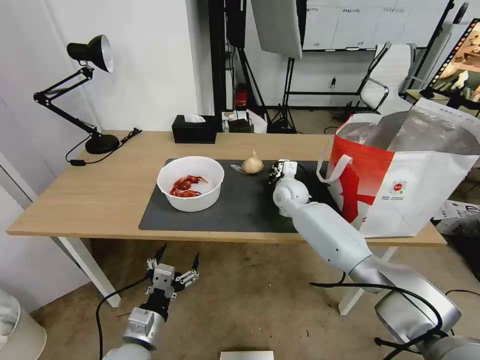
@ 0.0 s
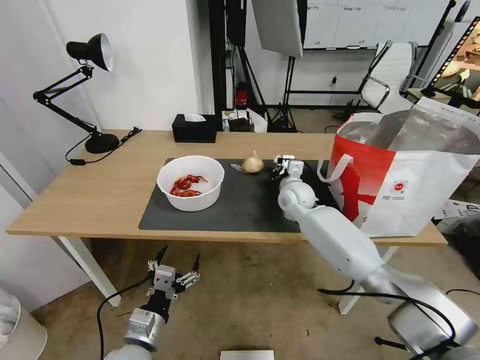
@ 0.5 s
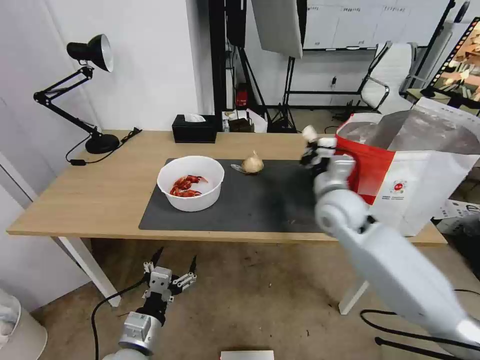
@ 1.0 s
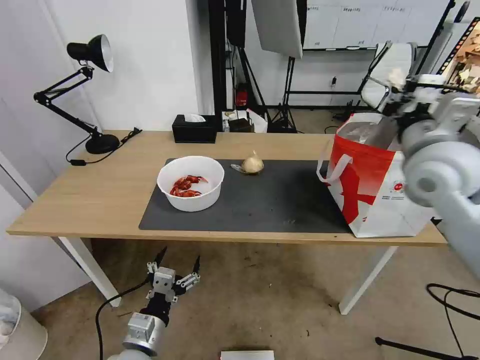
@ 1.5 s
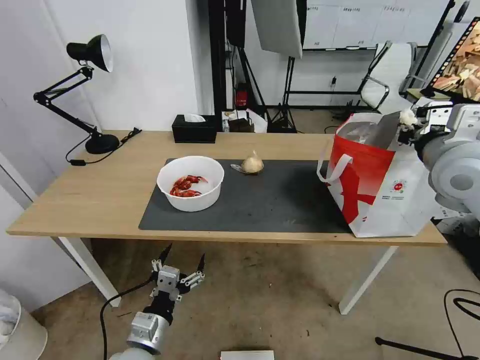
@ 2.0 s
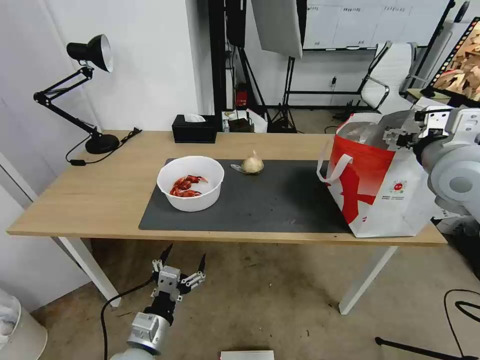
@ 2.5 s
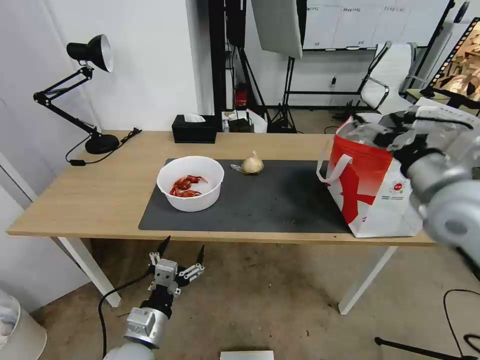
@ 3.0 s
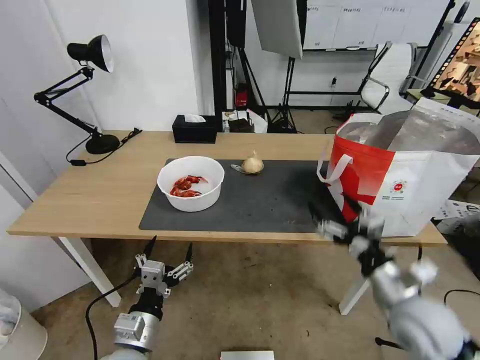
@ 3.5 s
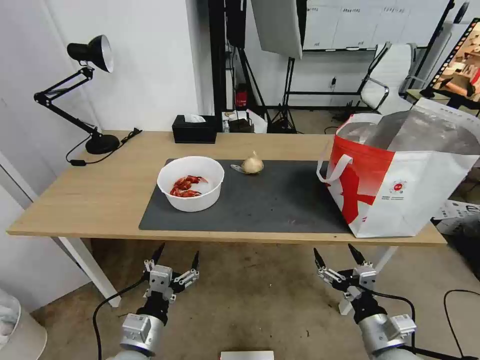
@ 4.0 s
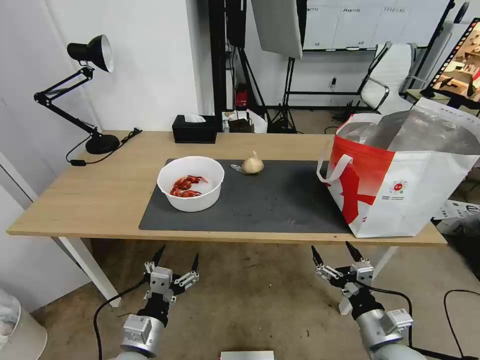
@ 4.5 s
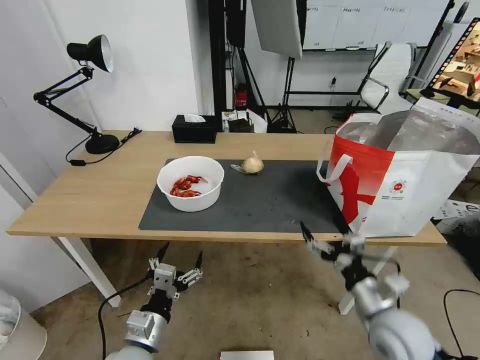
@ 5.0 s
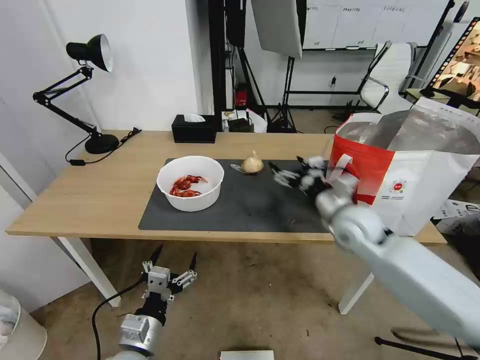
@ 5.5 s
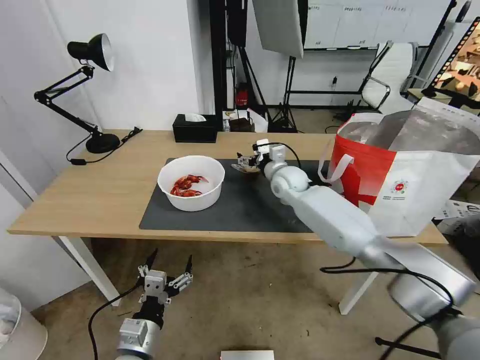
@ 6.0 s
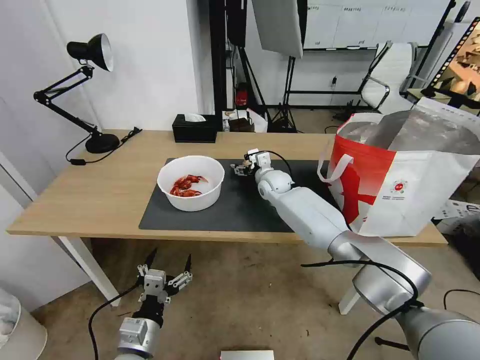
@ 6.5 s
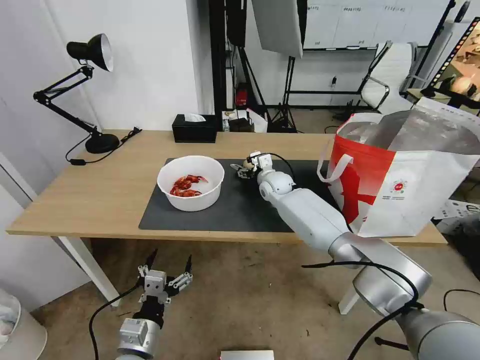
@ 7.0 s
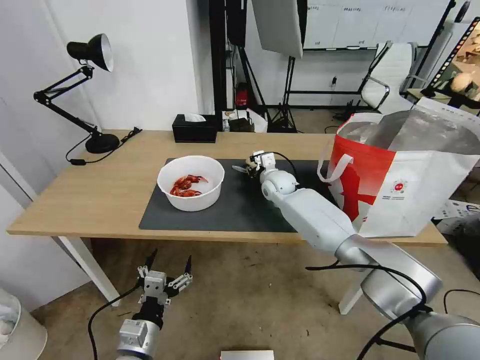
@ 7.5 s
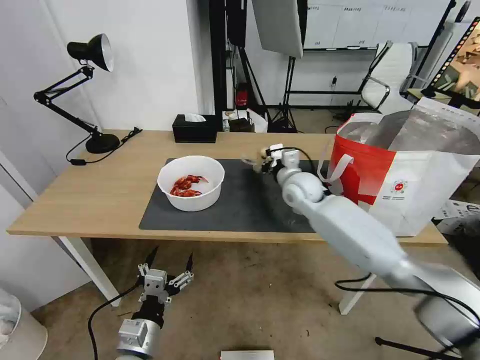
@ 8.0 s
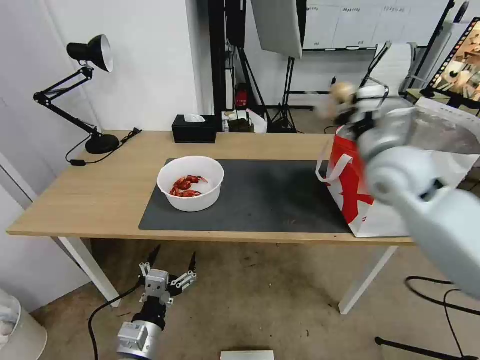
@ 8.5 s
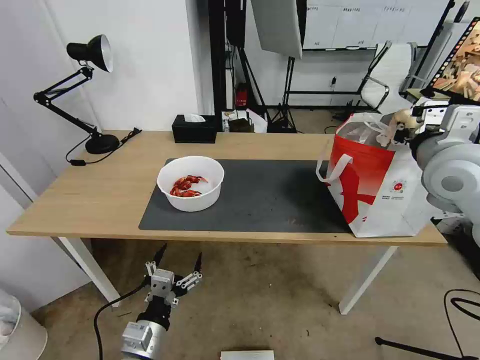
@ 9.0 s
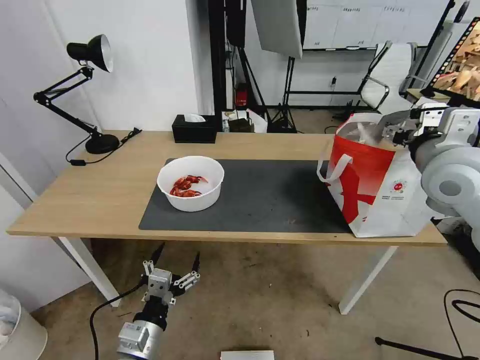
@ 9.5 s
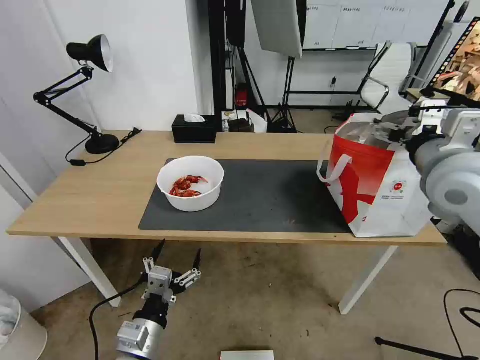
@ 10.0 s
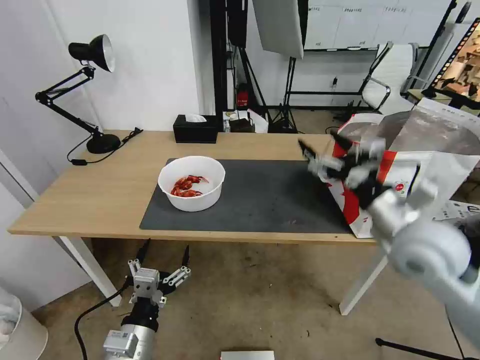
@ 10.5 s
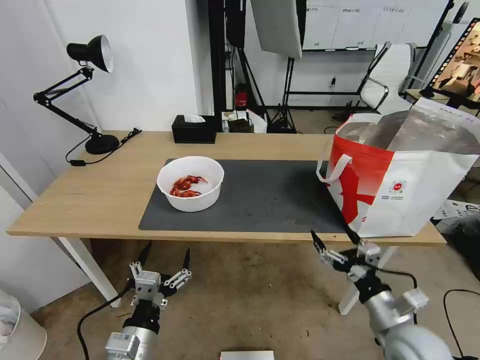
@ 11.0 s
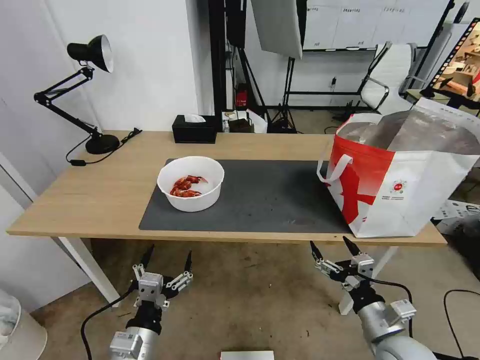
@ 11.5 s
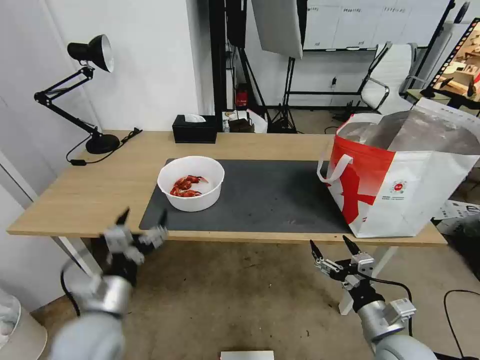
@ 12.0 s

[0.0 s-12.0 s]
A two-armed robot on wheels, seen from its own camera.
Task of the whole recording: Pick up the trash from the table and place it into the takeout bag.
0.0 to 2.0 s: The right gripper goes some 35 cm upward, to the right and backward.
2.0 to 4.0 s: The right gripper shifts approximately 40 cm downward and backward, and opens its fingers.
4.0 to 6.0 s: The right gripper travels forward by roughly 40 cm.
6.0 to 8.0 s: The right gripper heads backward, covering roughly 5 cm, and closes its fingers.
8.0 to 10.0 s: The right gripper moves to the right, upward and backward, approximately 30 cm, and opens.
10.0 to 12.0 s: The left gripper goes about 5 cm upward, while the right gripper moves downward and backward, about 35 cm.

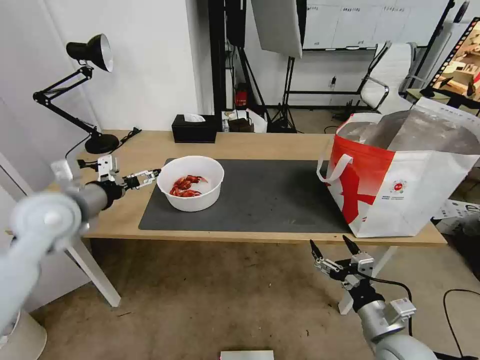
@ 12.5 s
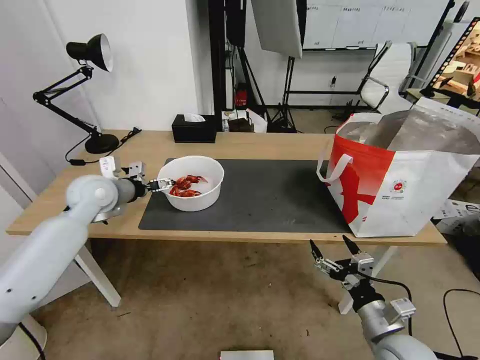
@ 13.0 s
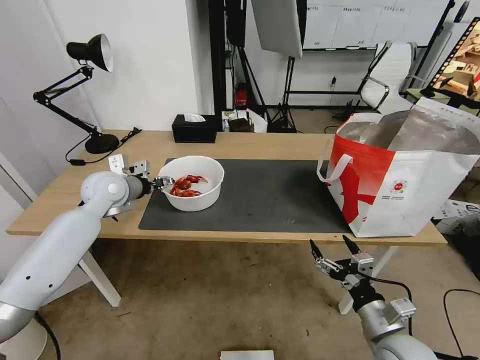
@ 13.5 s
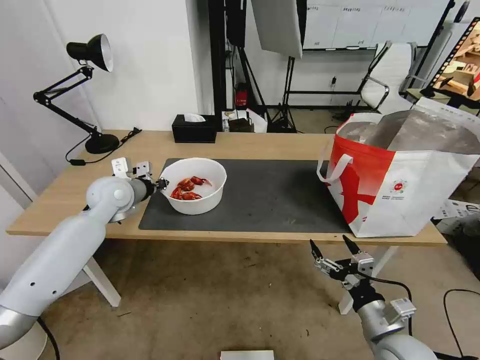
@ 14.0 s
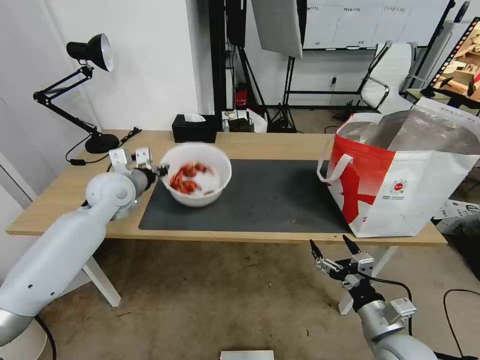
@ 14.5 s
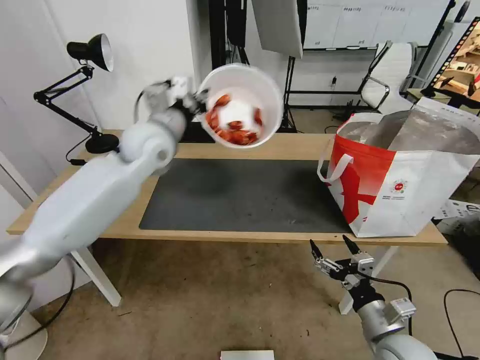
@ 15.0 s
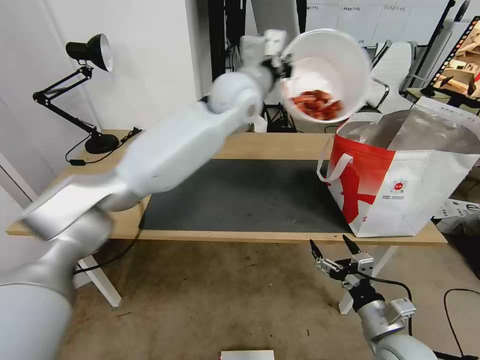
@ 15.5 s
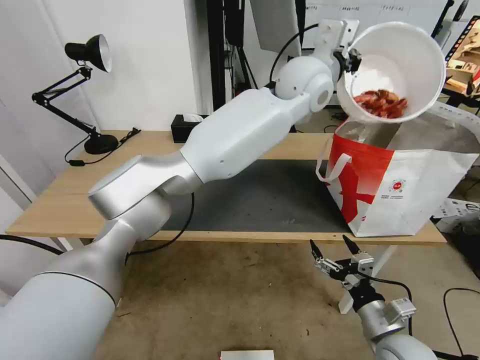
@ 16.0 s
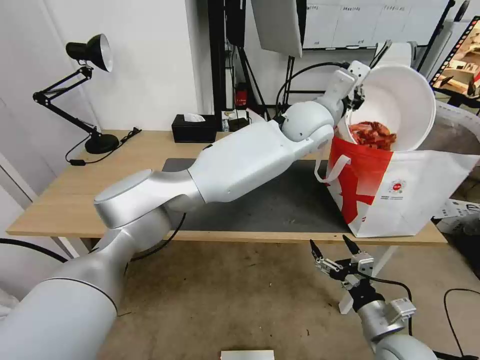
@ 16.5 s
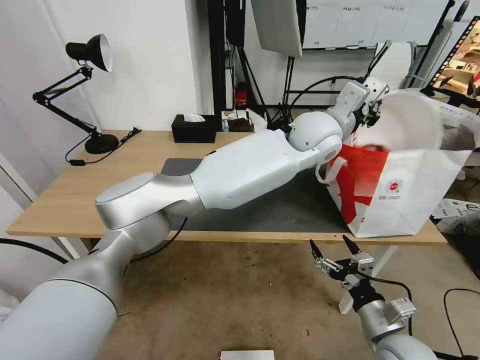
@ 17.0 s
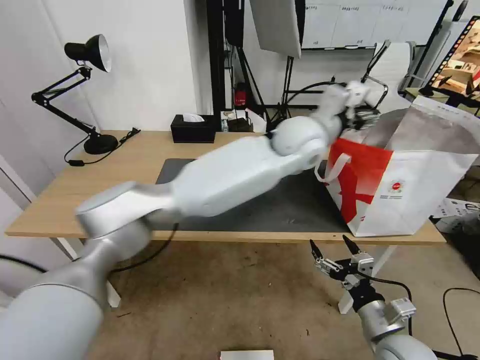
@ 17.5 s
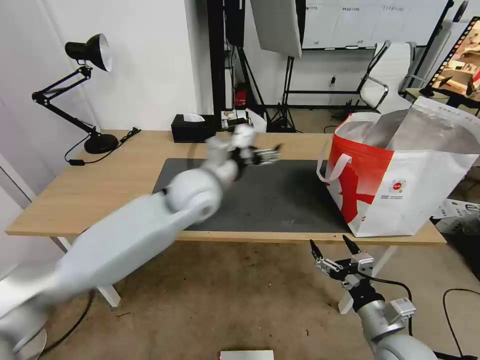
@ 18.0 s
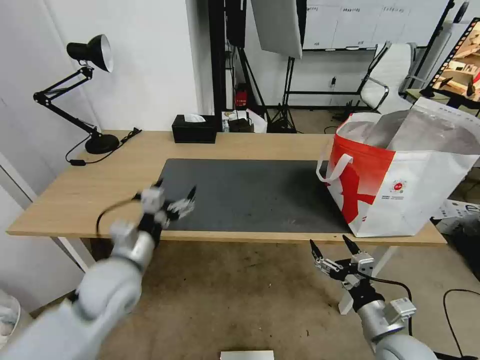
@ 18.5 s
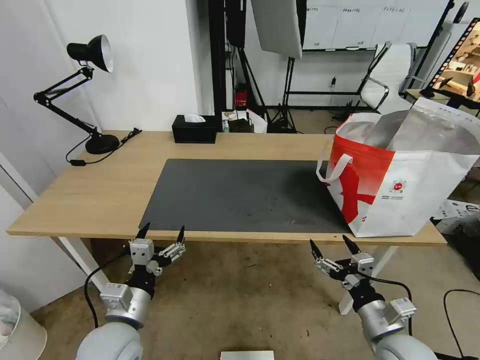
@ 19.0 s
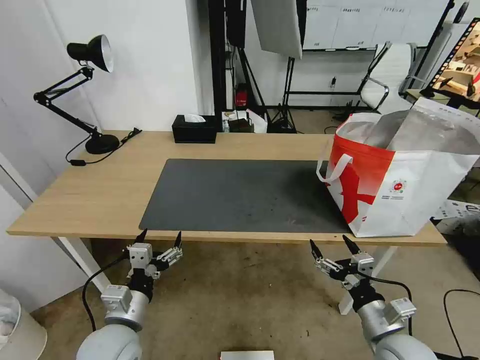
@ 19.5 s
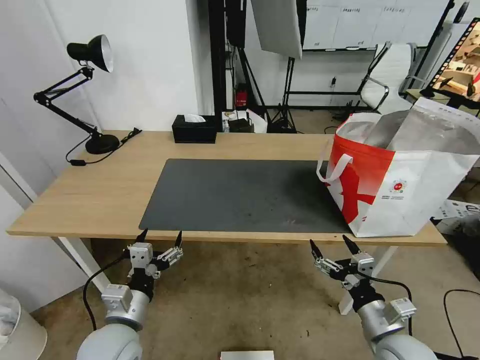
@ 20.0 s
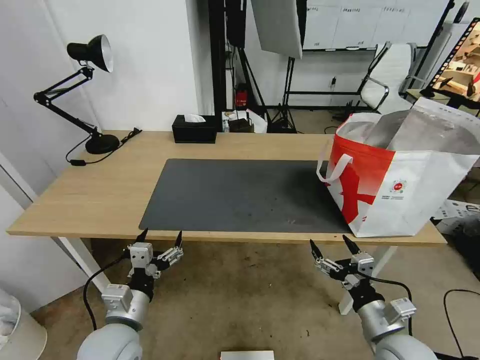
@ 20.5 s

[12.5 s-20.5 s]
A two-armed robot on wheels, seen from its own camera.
Task of the whole recording: Pick up the trash from the table and place it into the takeout bag.
12.5 to 14.5 s: The left gripper moves forward and to the right, some 10 cm, and closes.
14.5 to 16.5 s: The left gripper heads to the right, covering roughly 40 cm.
16.5 to 18.5 s: The left gripper heads to the left, backward and downward, covering approximately 50 cm, and opens up.
18.5 to 20.5 s: The left gripper travels backward and downward by about 10 cm.
